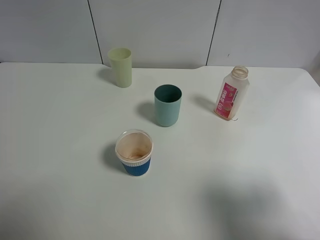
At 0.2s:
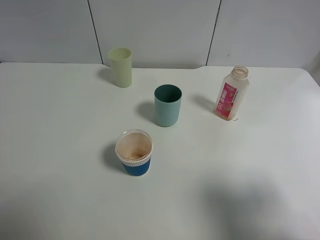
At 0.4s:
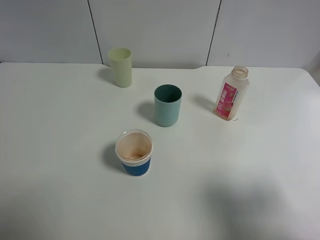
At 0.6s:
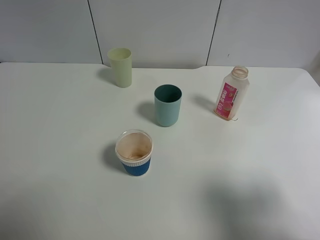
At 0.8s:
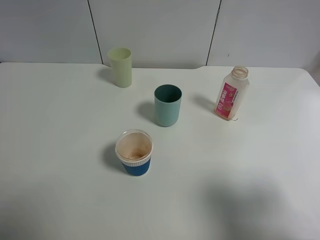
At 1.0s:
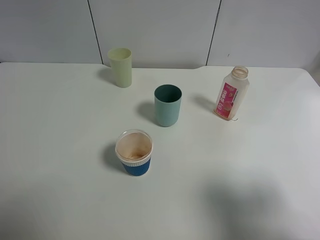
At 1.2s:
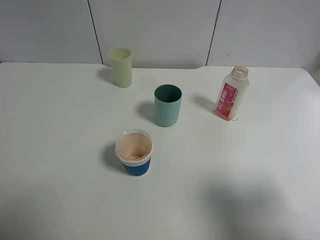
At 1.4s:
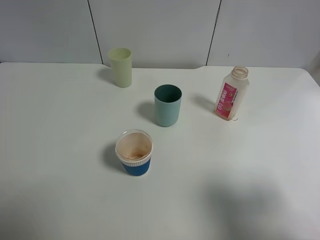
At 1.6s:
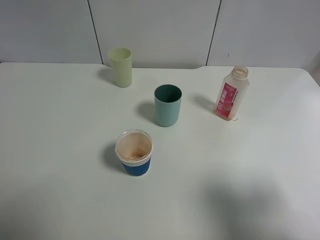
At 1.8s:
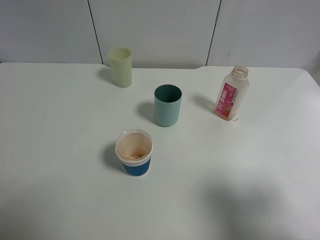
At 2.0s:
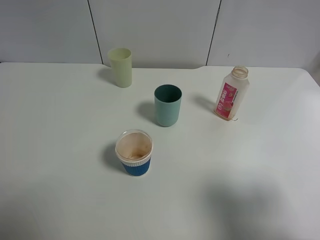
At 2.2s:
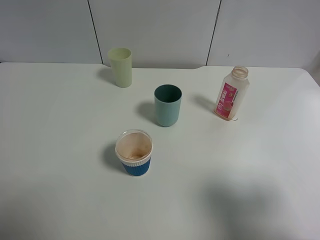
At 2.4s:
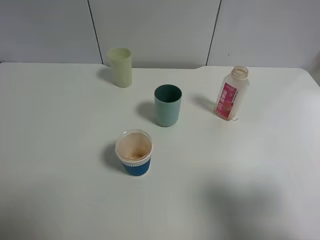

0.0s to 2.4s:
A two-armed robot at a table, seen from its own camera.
Task of the whole recording: use a gripper to hold the bottle of the drink and pour it into a random cup.
0.0s to 2.4s: Neither gripper changes place.

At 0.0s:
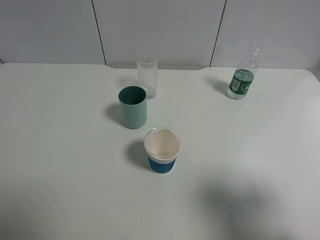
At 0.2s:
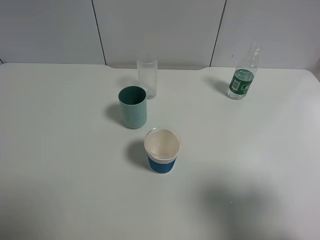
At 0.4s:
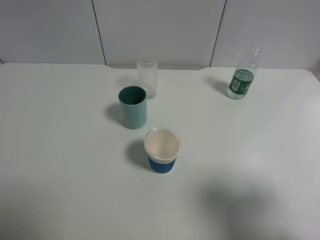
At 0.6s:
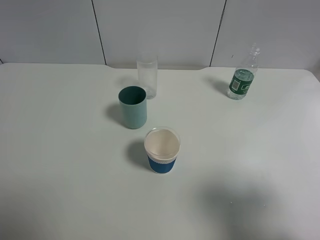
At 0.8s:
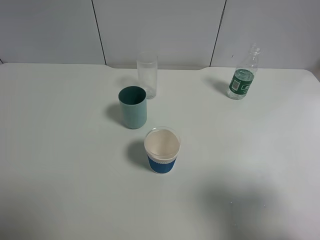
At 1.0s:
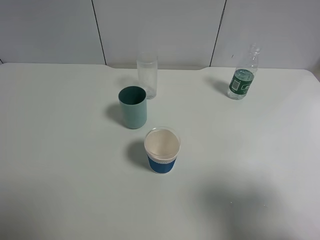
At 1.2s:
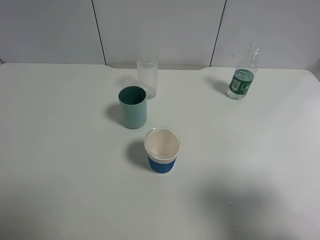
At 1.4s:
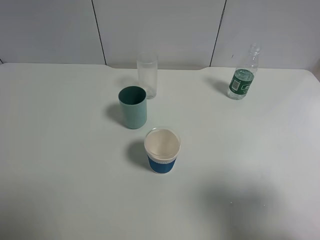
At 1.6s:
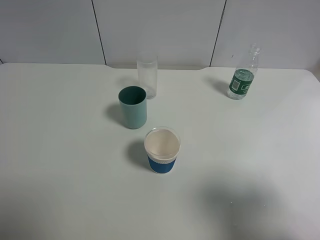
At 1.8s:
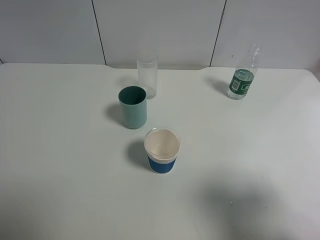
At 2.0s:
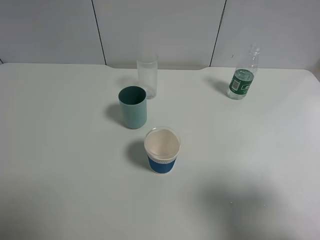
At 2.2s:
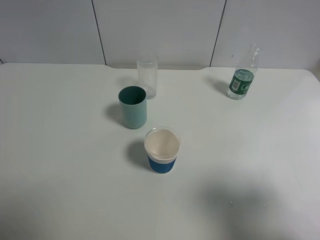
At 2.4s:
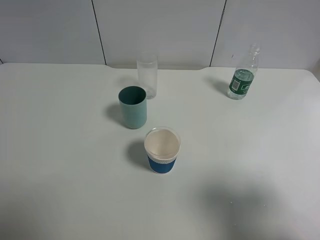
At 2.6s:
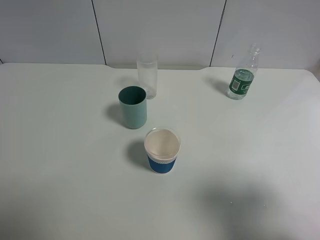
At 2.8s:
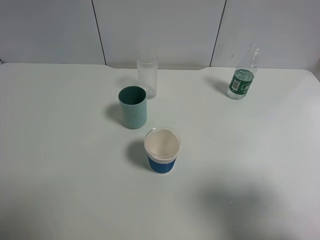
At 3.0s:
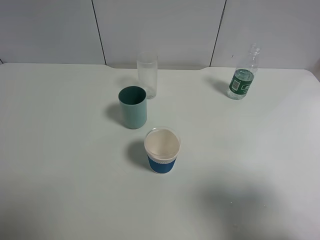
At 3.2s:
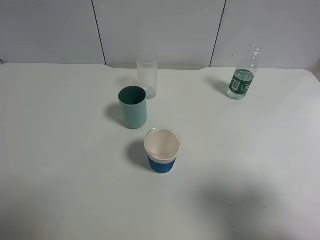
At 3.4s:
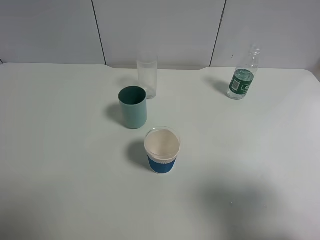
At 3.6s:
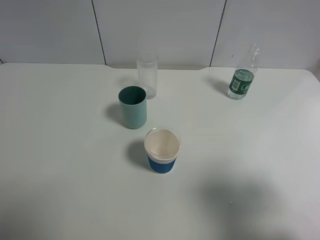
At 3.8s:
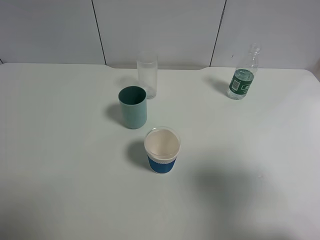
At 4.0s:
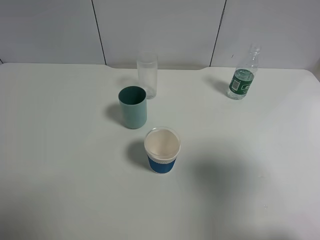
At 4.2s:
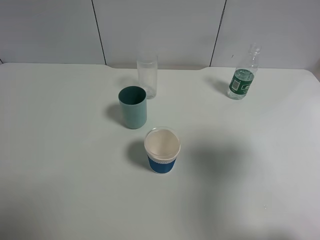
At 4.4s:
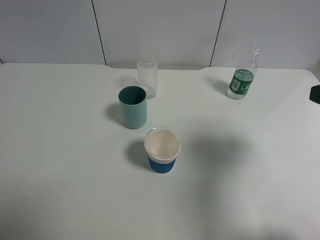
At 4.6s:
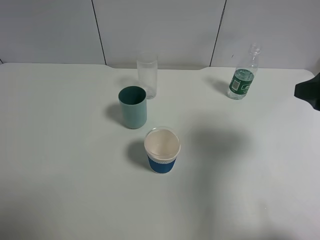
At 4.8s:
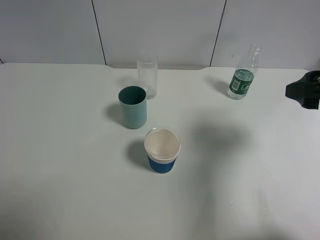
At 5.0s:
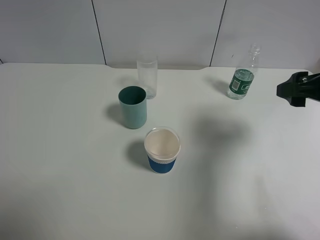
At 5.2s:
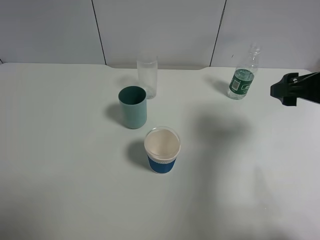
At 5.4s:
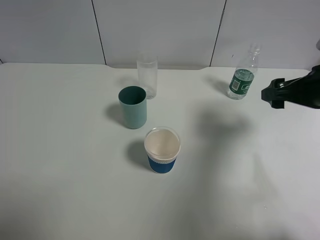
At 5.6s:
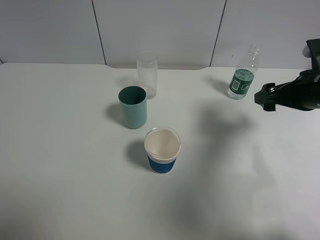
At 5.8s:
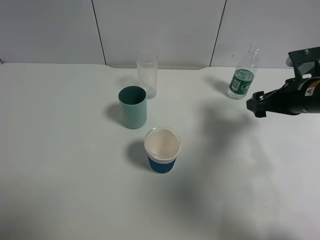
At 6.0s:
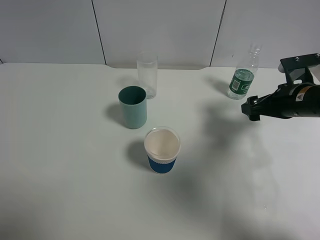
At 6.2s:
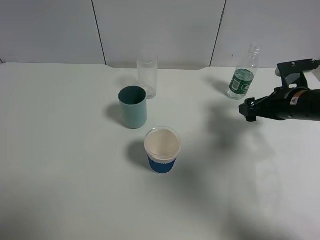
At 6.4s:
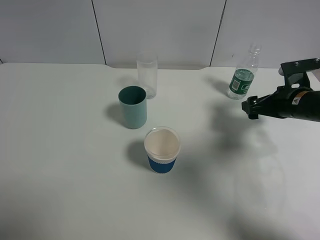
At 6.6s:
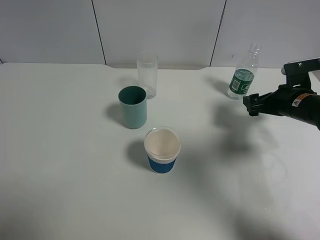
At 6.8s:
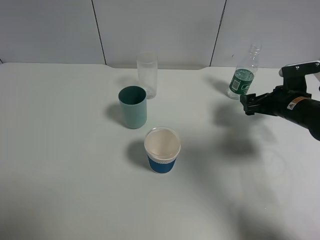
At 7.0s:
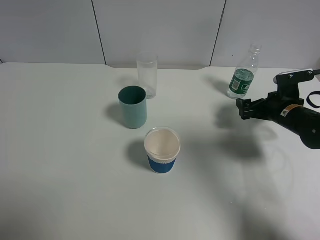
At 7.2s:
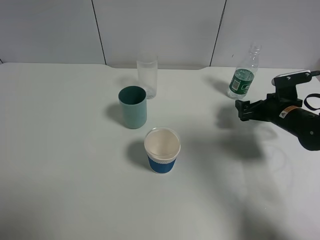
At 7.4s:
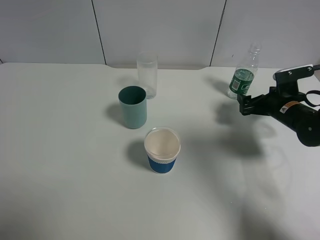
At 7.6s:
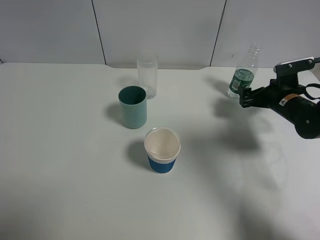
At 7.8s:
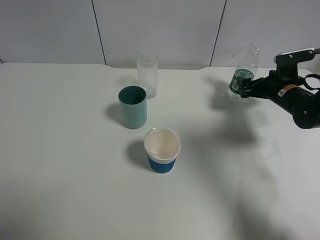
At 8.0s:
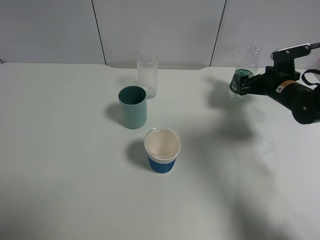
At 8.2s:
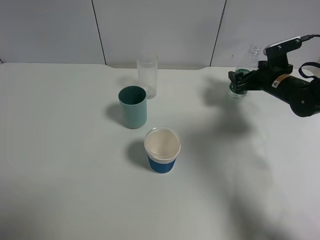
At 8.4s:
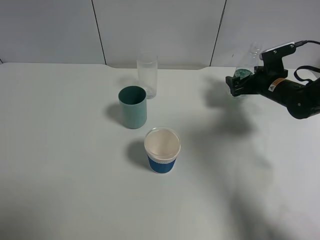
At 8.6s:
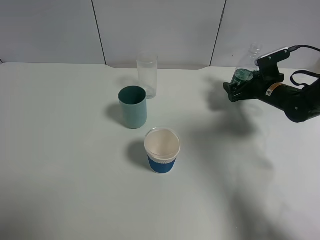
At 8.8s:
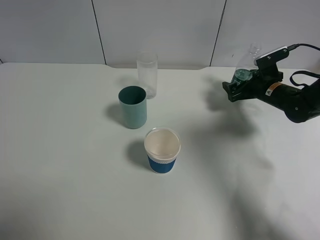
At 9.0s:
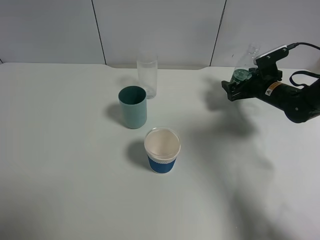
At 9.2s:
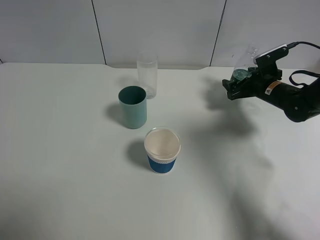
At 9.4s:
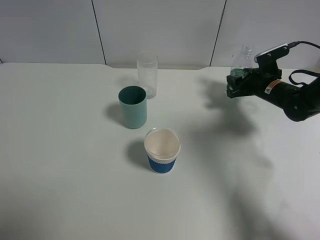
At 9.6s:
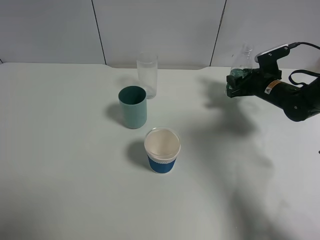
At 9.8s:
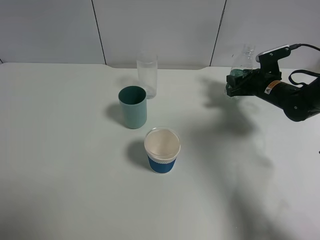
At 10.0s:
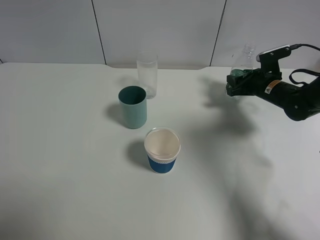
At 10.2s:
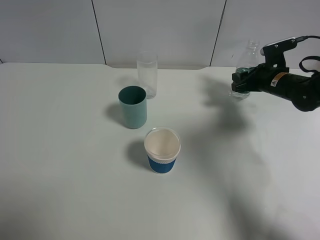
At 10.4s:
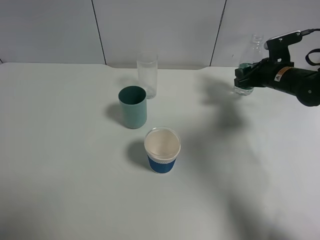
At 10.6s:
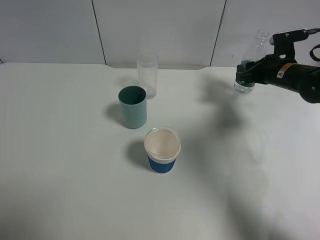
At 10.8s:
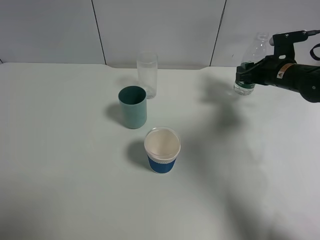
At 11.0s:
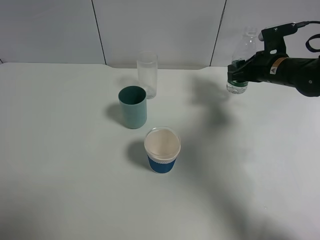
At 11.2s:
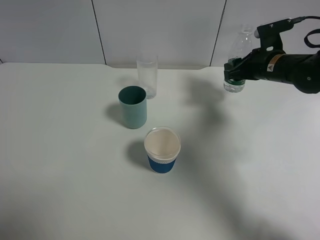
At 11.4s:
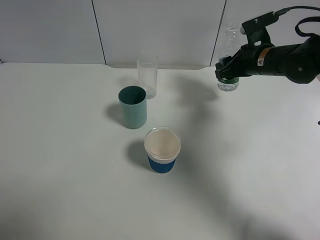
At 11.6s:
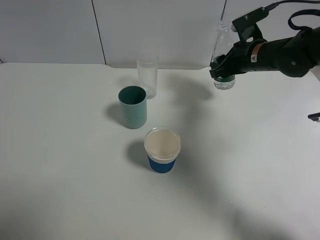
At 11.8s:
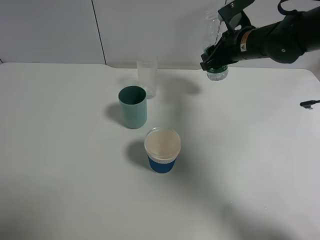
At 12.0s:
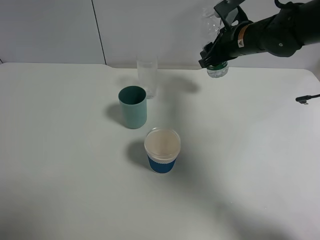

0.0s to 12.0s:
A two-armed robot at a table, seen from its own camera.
Task of the whole recording: use a gripper to hold the bottle of the drink and pour it into a random cup.
Step, 0.0s to 9.6s: Grasp the mineral water bottle with the right gripper.
0.0s to 3.0s: Neither gripper changes place.
3.0s to 4.4s: The right gripper shifts approximately 10 cm forward.
4.4s to 6.0s: The right gripper travels forward and downward by some 20 cm.
6.0s to 7.6s: The right gripper heads forward and downward, covering some 10 cm.
7.6s to 9.0s: The right gripper changes place by roughly 5 cm.
9.0s to 10.4s: The right gripper closes its fingers.
10.4s to 12.0s: The right gripper shifts approximately 15 cm to the left and upward.

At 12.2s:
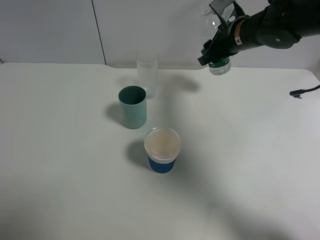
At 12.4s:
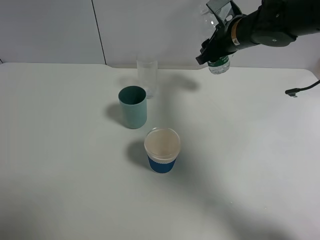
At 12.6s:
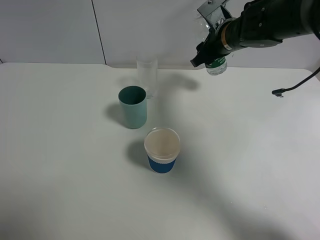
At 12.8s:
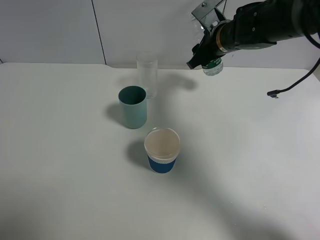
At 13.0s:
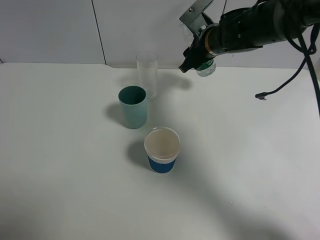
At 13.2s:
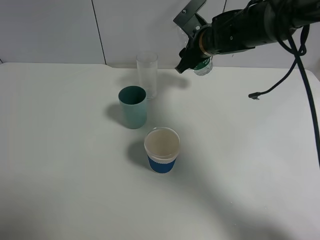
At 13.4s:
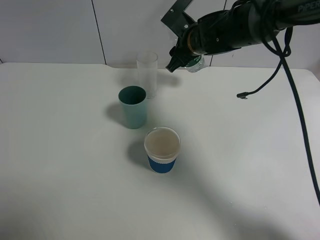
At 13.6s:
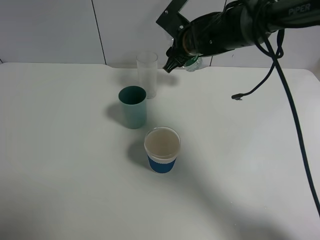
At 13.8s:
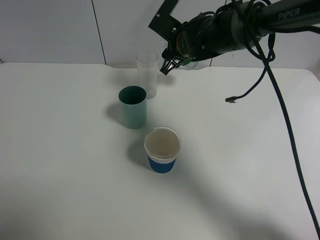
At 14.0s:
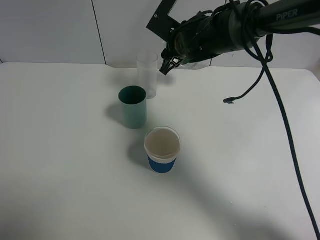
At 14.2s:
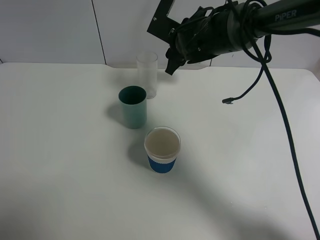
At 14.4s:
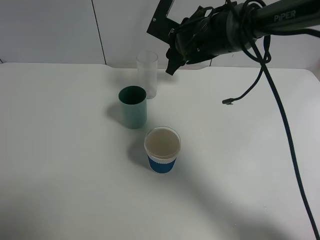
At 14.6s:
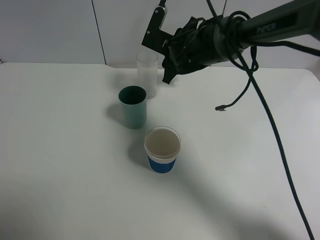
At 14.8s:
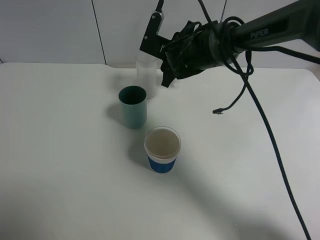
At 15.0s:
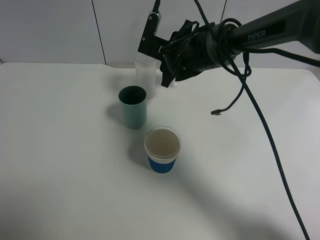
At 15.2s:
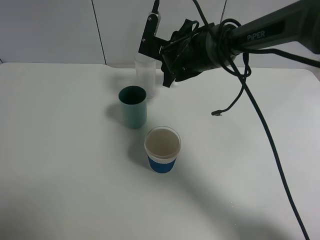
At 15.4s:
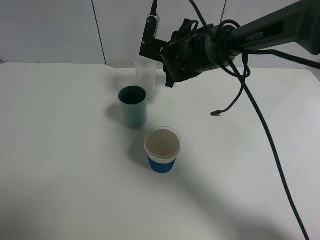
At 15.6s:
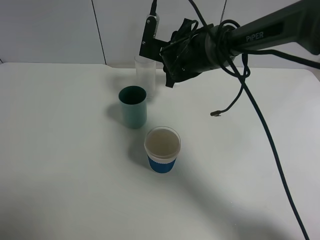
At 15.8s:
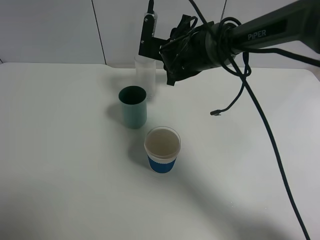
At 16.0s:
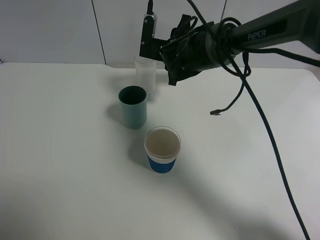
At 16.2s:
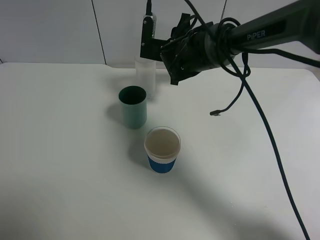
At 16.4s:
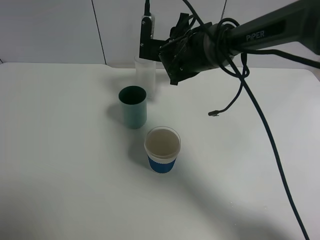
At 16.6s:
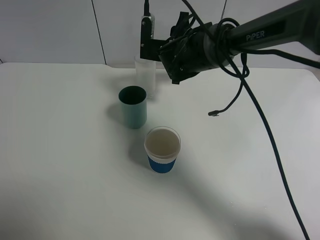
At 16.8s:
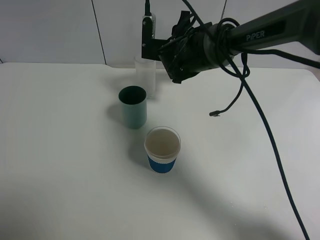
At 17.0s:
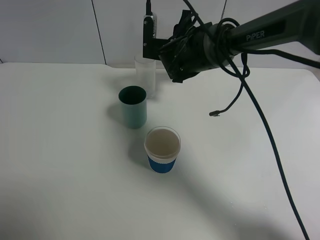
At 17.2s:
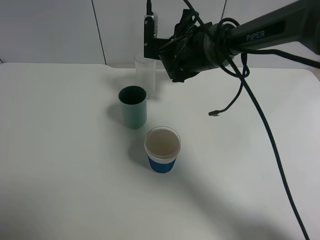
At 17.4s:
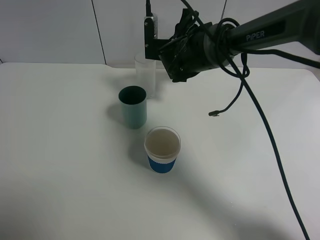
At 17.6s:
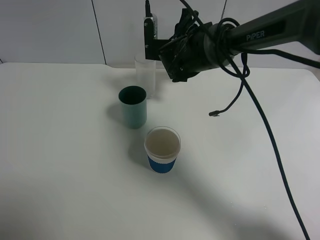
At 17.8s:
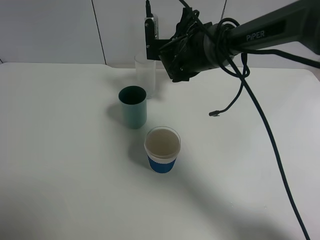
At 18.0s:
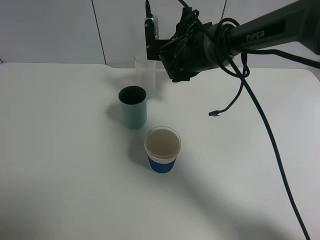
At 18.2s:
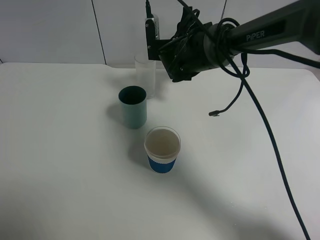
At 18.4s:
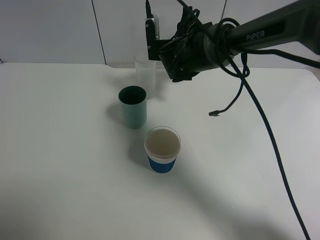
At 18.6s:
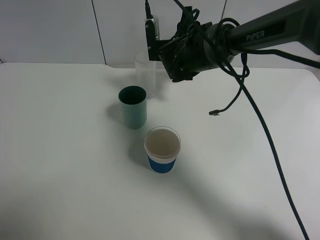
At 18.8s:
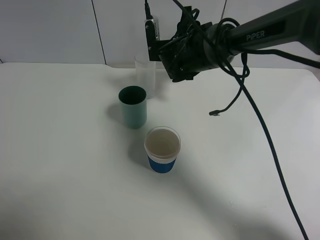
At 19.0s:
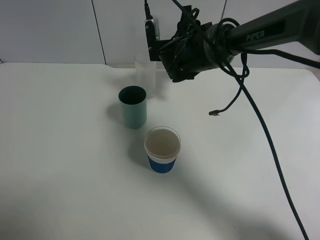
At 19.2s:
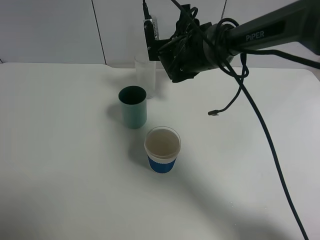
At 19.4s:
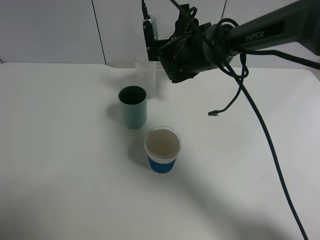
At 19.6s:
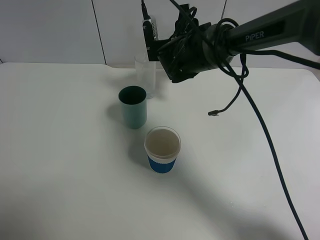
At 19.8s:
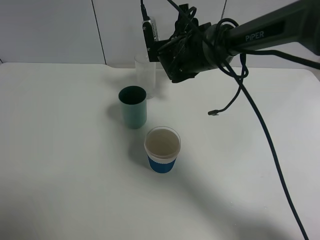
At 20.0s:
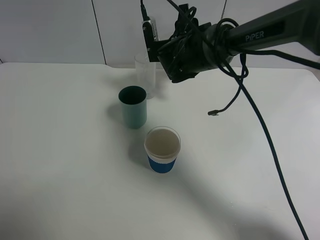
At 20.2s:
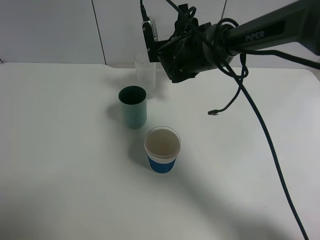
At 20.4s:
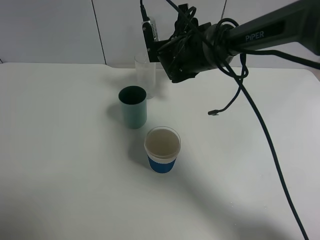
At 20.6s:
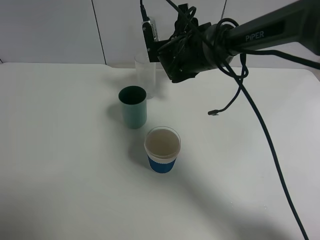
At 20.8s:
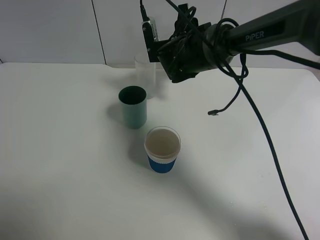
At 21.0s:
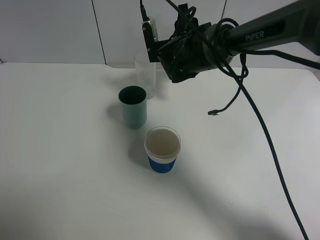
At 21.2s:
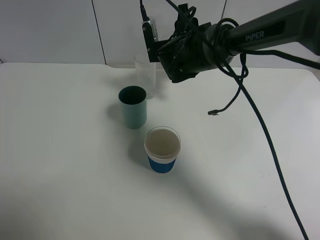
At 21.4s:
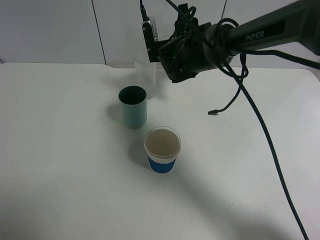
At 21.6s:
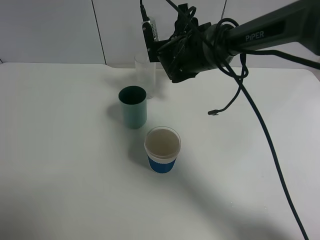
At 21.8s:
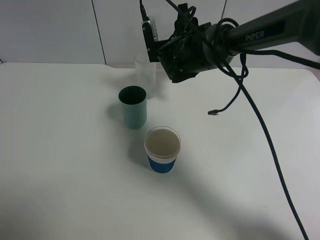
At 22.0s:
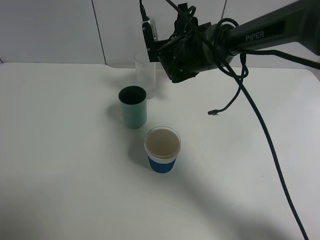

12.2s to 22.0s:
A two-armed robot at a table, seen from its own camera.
Task of the whole recording: use a gripper to hold the bottle of the drink and pour it into a random cup.
12.2s to 13.6s: The right gripper moves to the left, about 10 cm.
15.0s to 16.4s: There are only small adjustments of the grippers.
16.4s to 19.2s: The grippers stay close to where they were, moving slightly.
19.2s to 22.0s: Both grippers stay put.
